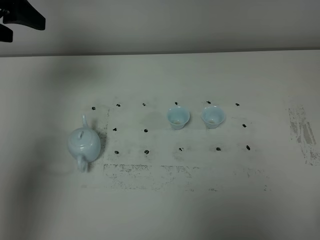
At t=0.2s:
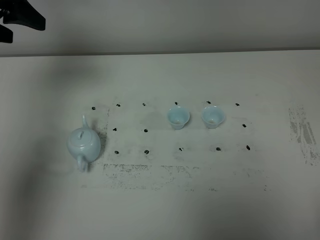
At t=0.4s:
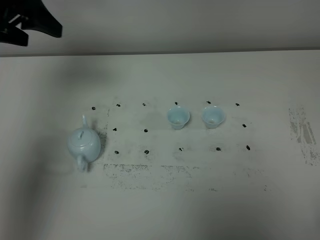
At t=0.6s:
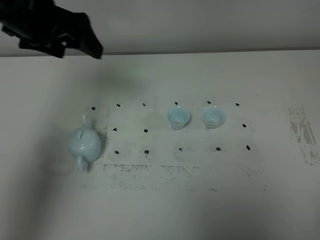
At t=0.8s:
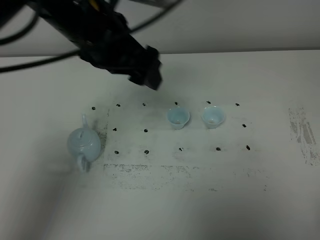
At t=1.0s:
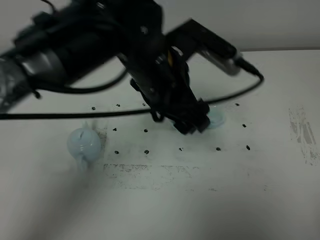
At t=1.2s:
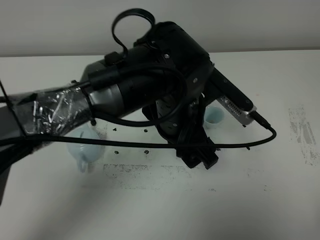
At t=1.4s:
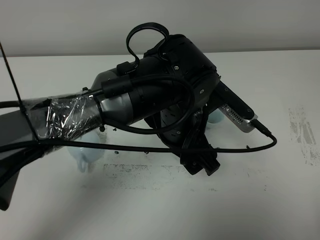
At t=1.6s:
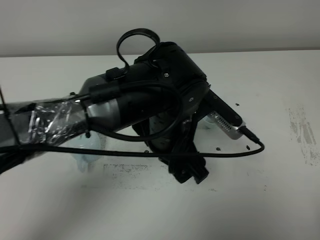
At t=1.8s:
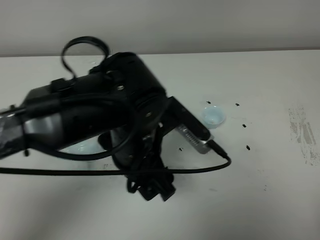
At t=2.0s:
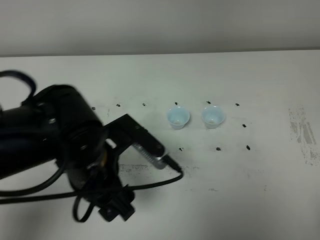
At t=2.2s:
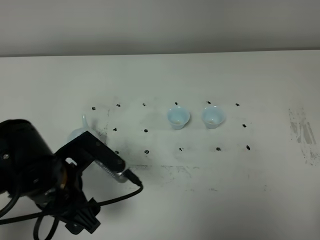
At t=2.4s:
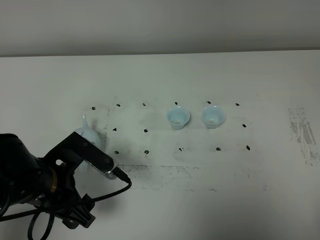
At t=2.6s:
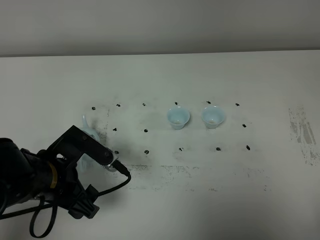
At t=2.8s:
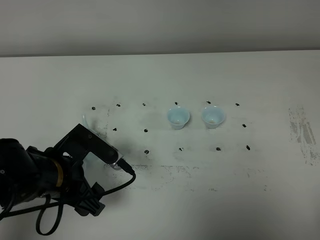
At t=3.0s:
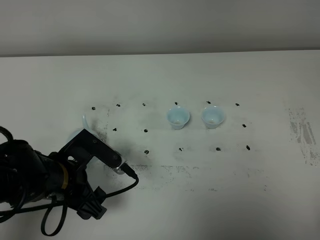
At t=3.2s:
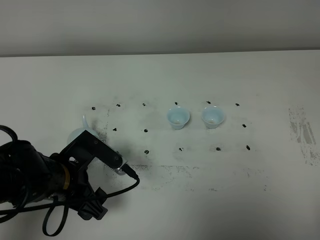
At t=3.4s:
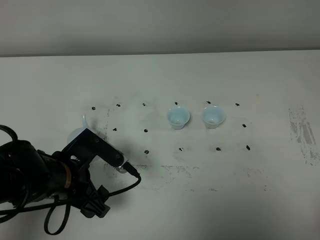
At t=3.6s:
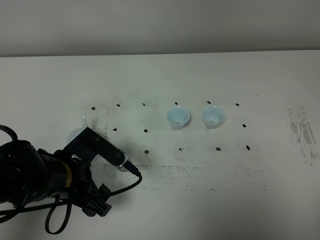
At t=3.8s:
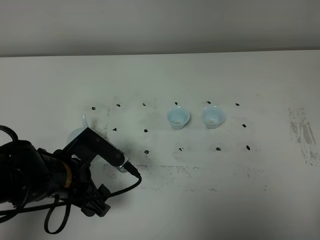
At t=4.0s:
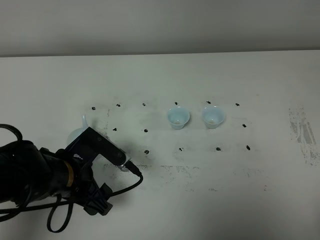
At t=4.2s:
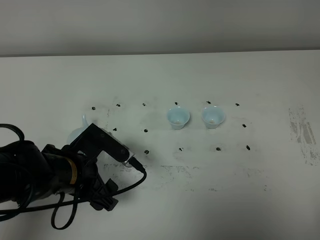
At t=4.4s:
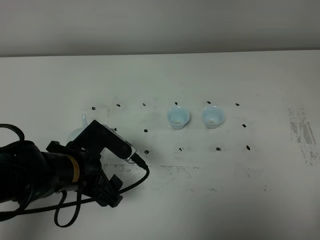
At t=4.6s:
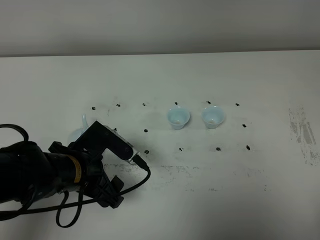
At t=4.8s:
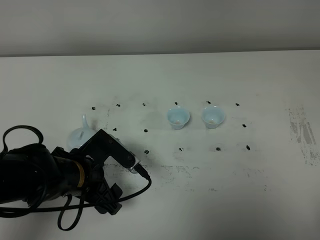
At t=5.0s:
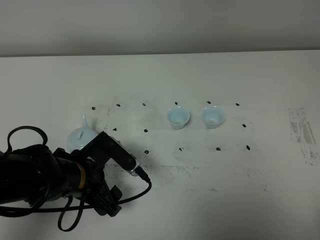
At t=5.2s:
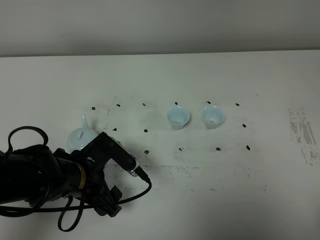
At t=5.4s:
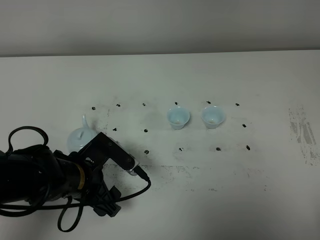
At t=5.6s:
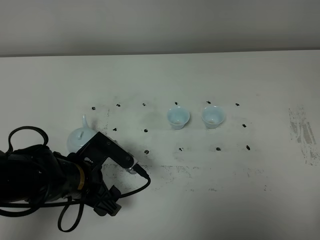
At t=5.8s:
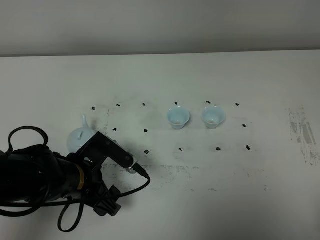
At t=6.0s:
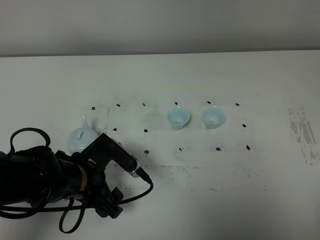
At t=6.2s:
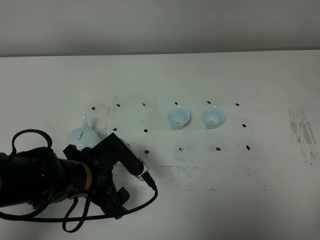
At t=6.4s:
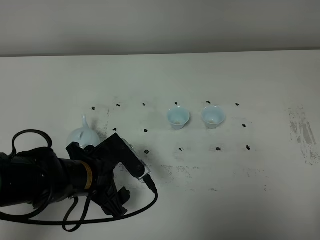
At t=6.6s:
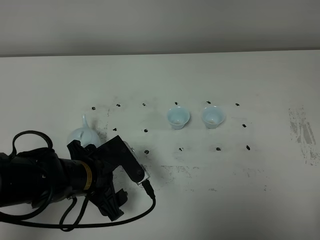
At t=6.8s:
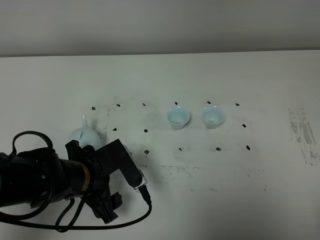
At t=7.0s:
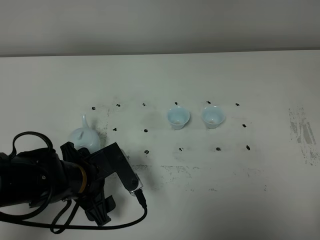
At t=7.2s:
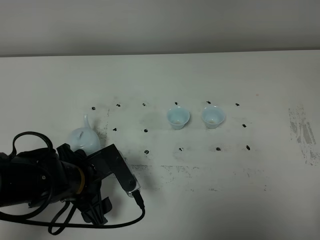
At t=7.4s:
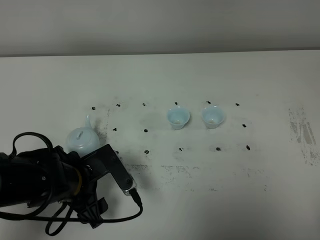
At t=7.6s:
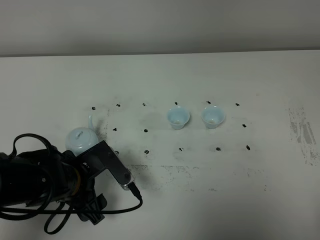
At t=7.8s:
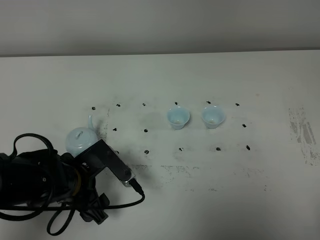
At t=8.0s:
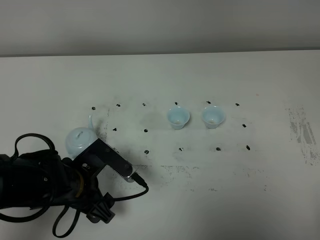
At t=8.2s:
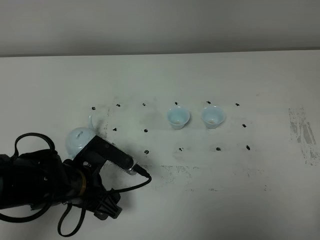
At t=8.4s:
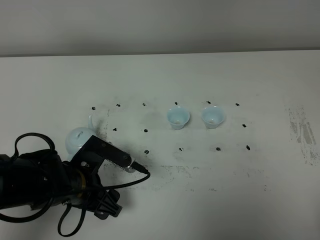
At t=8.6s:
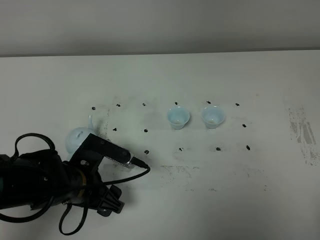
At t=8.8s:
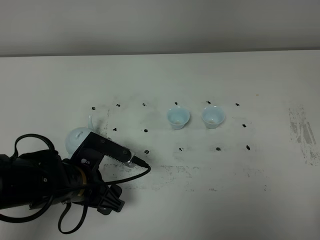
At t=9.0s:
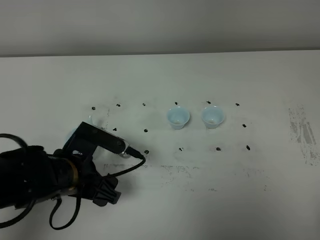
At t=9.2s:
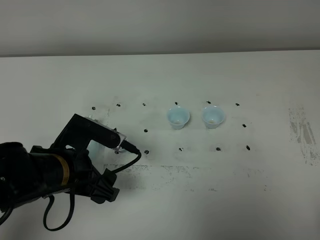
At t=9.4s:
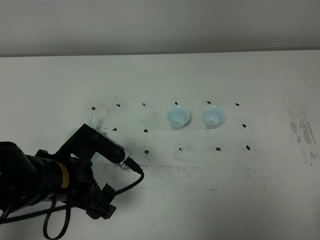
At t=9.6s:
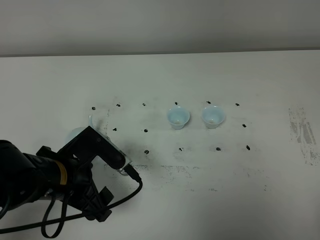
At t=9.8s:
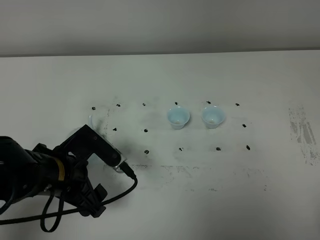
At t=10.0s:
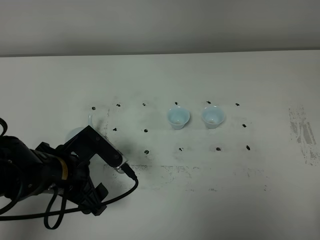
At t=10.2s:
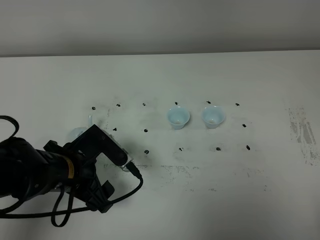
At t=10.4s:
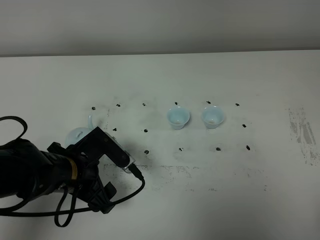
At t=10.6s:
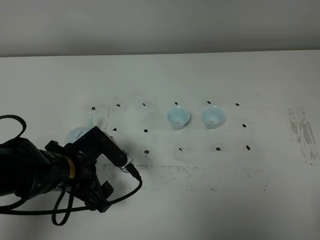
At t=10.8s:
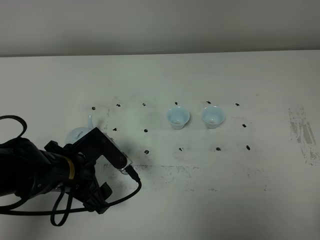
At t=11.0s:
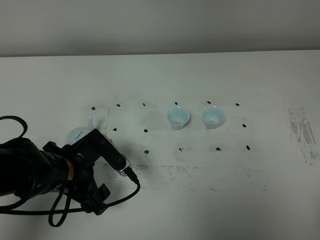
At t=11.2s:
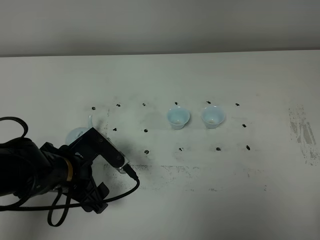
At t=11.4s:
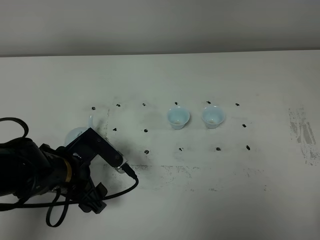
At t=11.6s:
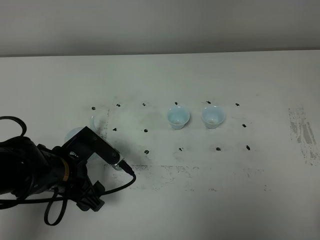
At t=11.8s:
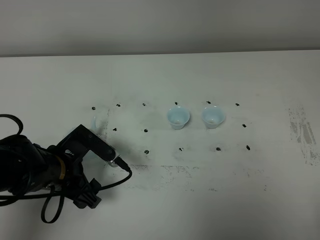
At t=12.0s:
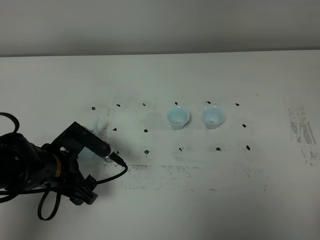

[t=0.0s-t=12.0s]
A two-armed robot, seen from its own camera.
Task of the whole recording: grasp the blue porcelain teapot and pour the tea into the two blue porcelain teacups one by one, put the blue porcelain teapot back in its original place.
t=0.0s to t=1.6s: The left gripper is displaced to the right and backward by roughly 35 cm.
t=1.6s to t=3.0s: The left gripper goes some 20 cm to the left and downward.
t=3.0s to t=6.0s: There are only small adjustments of the grippers.
t=6.0s to t=7.6s: There are only small adjustments of the grippers.
t=9.0s to t=12.0s: There are only small adjustments of the grippers.

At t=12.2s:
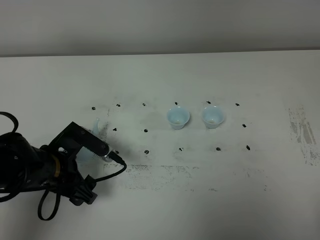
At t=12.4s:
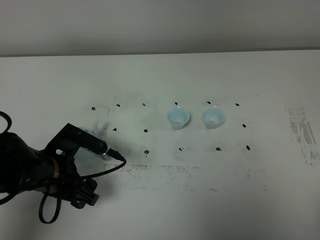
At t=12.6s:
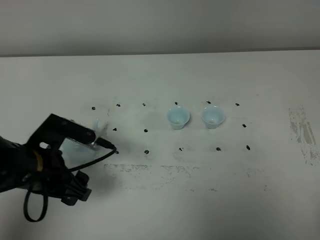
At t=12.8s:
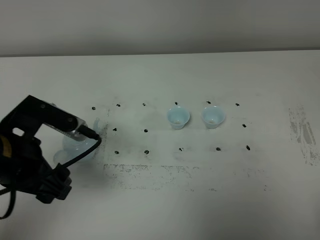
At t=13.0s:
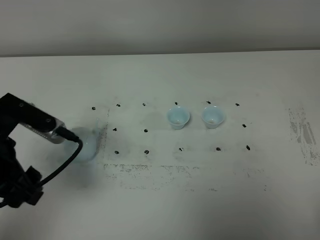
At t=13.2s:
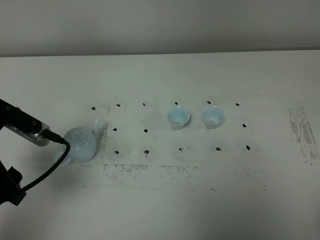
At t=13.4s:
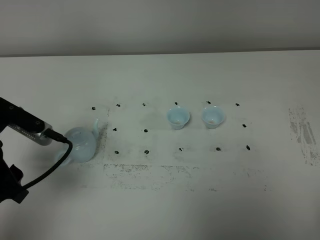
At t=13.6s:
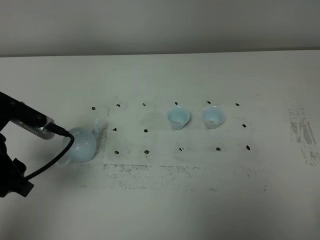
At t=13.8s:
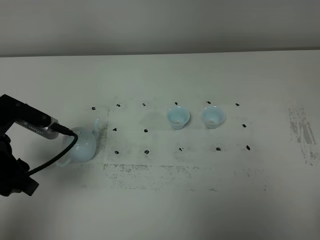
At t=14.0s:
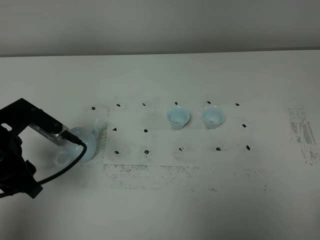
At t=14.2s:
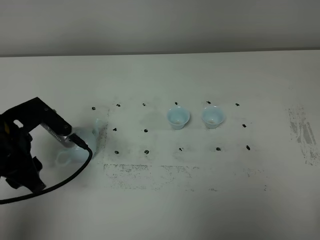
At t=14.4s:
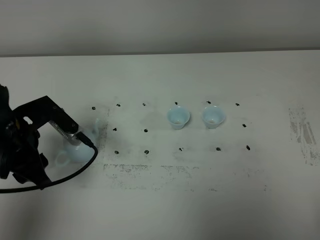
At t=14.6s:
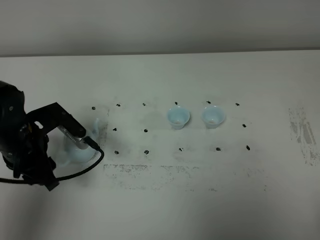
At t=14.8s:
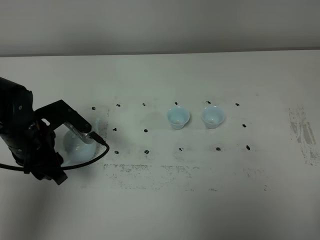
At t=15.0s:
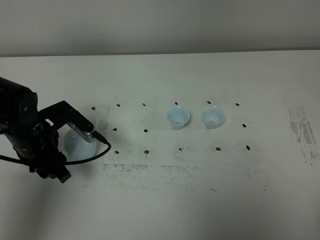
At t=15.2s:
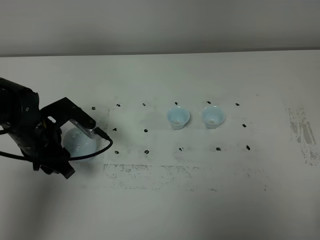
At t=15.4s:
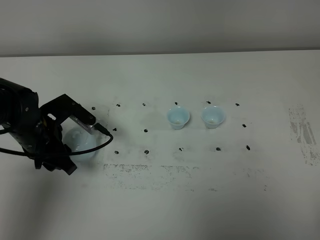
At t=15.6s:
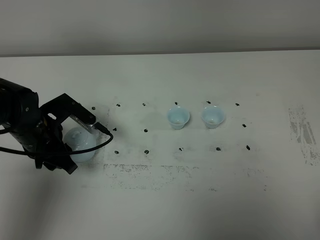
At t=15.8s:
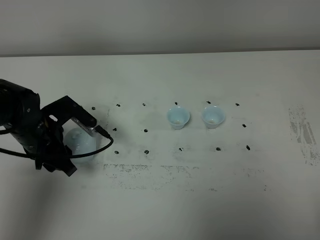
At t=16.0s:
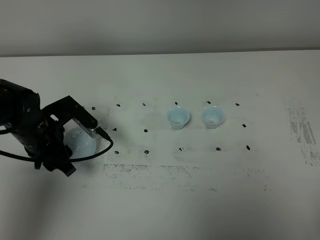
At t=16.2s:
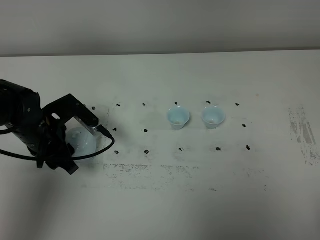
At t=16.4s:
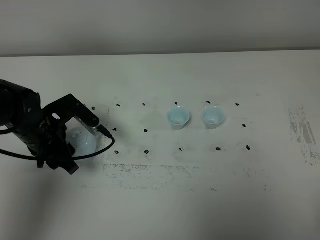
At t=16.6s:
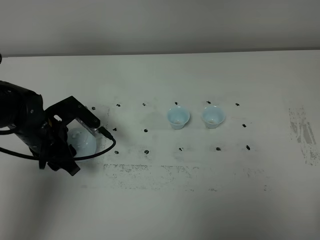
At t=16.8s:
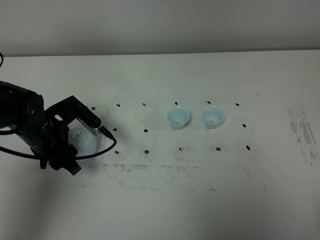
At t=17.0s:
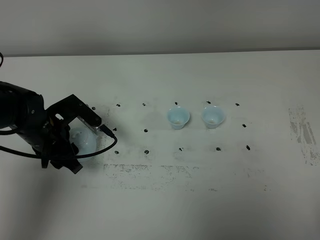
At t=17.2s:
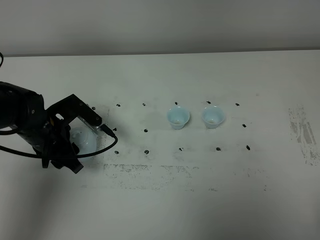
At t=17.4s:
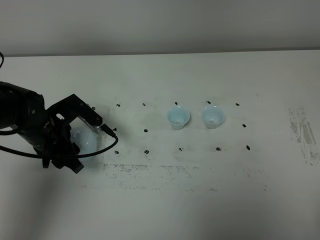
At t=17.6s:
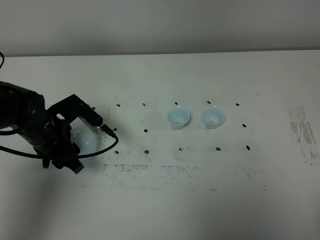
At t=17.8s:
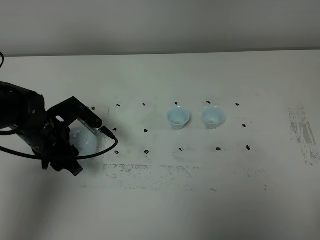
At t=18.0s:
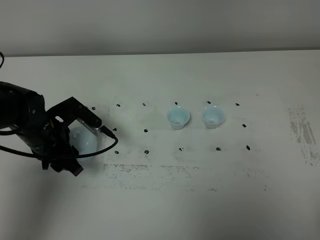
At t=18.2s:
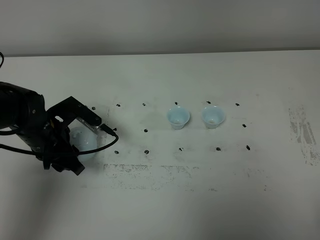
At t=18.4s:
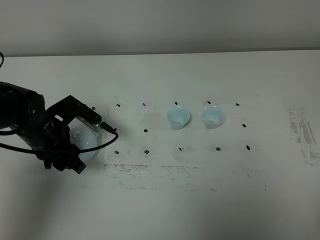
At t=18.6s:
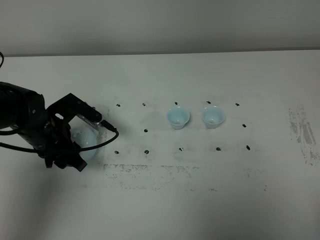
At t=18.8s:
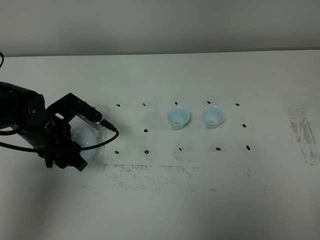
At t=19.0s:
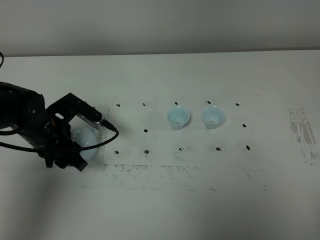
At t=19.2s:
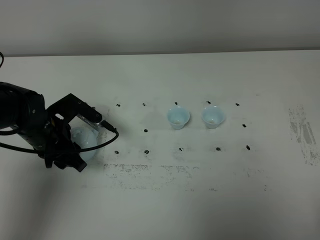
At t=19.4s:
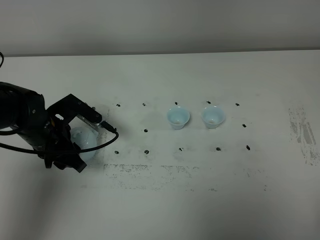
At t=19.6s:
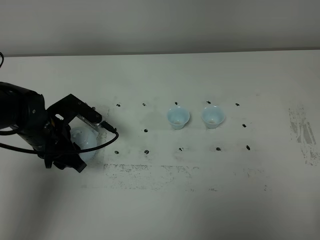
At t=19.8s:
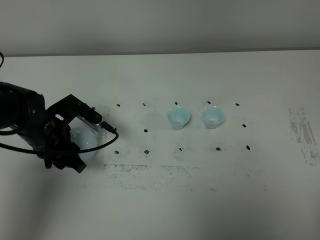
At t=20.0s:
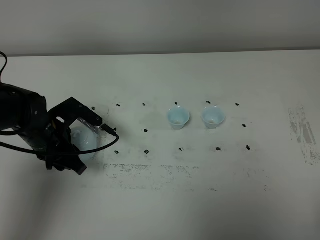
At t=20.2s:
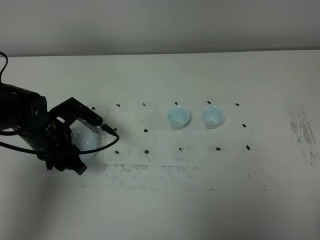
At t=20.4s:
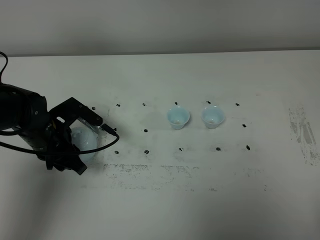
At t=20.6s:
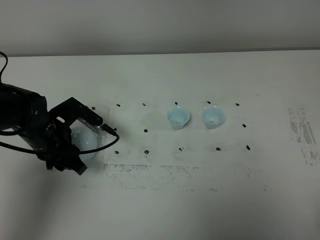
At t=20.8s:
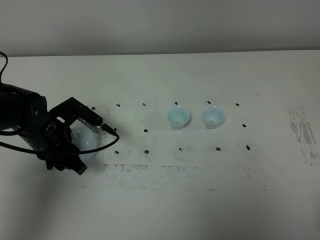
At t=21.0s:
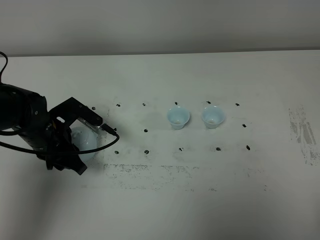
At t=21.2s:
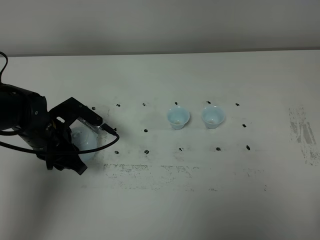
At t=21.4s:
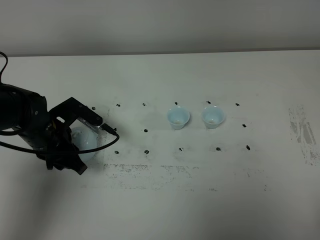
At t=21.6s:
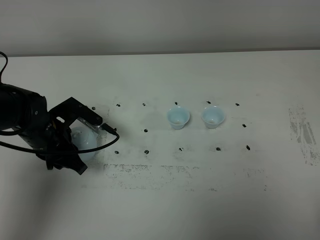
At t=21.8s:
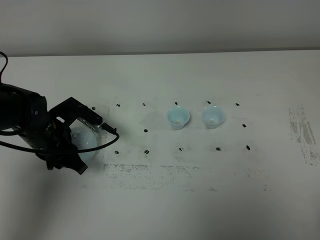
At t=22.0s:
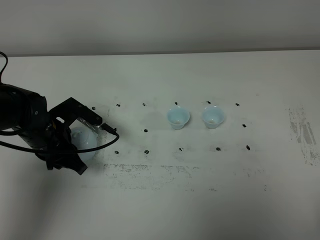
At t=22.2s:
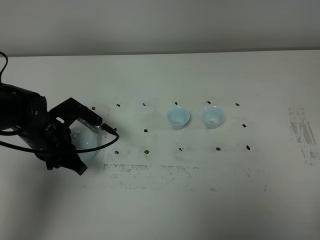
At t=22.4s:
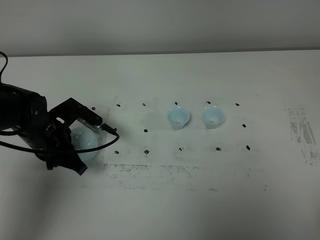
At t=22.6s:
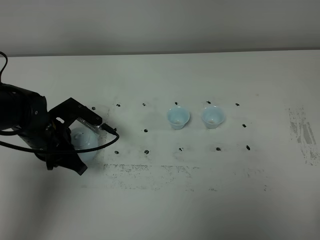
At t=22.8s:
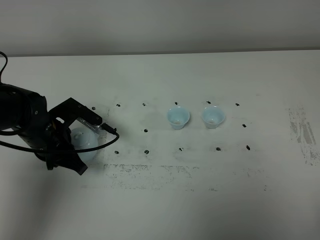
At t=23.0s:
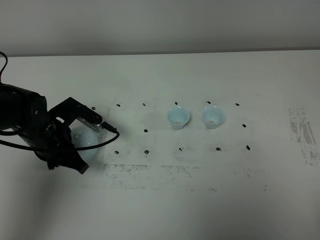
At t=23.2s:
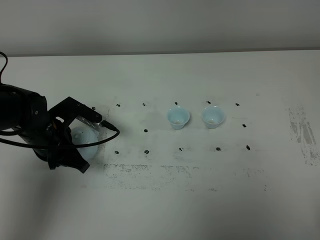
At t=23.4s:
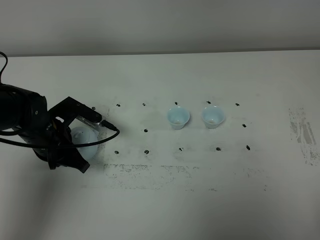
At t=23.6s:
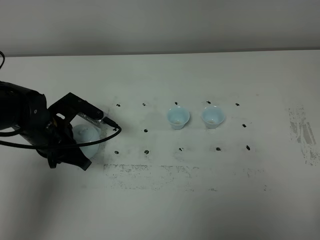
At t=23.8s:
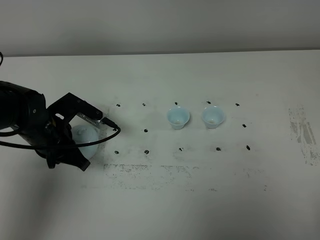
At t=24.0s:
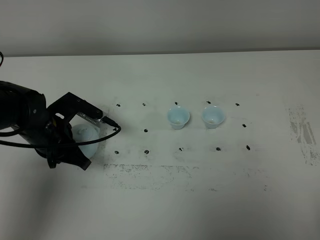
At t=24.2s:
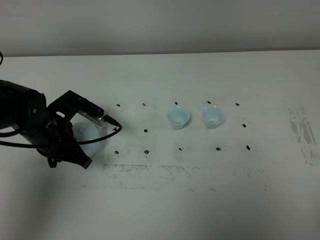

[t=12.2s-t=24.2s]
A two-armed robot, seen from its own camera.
Task of the whole recording: grasp the blue porcelain teapot and pour the tea into the two blue porcelain teacups one by one, put the blue porcelain teapot back in its original place.
Step, t=12.2s to t=24.0s: Pick up the teapot with the left gripper.
t=12.2s to t=13.8s: The left gripper moves upward and to the left, about 15 cm.
t=13.8s to t=15.2s: The left gripper goes some 15 cm downward and forward.
t=15.2s to t=16.6s: The grippers move only a little.
t=16.6s to t=18.2s: Both grippers stay put.
t=18.2s to t=21.2s: Both grippers stay put.
t=22.6s to t=24.2s: The grippers stay close to where they were, moving slightly.
